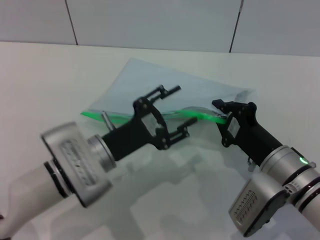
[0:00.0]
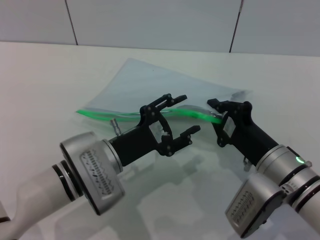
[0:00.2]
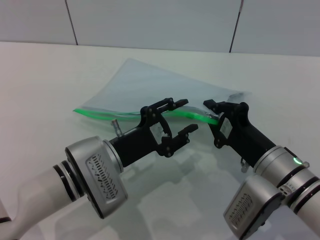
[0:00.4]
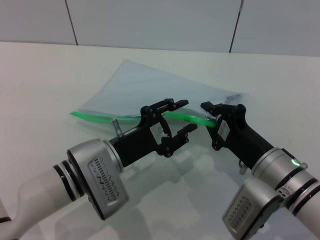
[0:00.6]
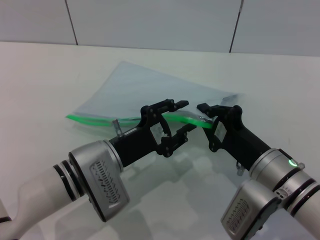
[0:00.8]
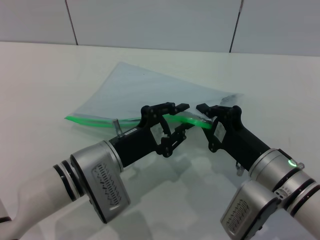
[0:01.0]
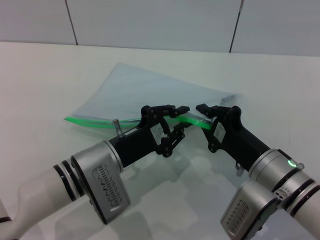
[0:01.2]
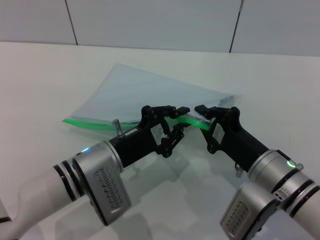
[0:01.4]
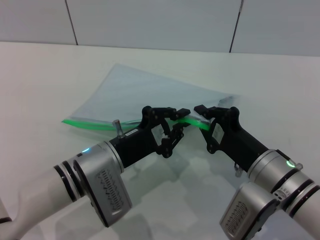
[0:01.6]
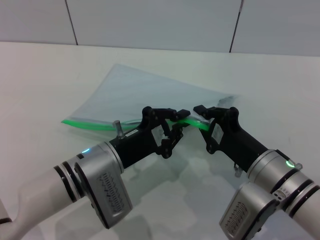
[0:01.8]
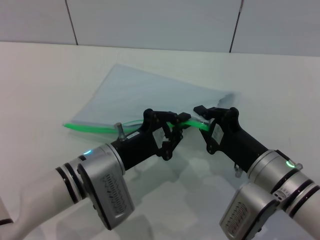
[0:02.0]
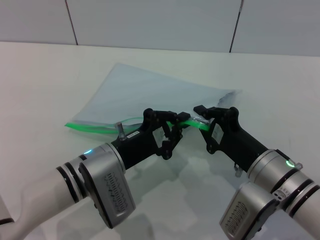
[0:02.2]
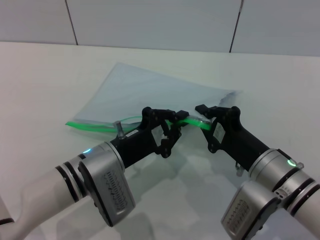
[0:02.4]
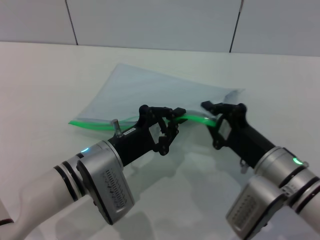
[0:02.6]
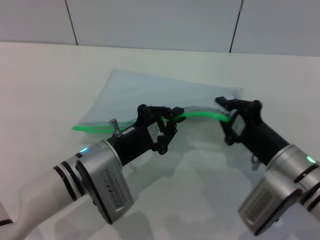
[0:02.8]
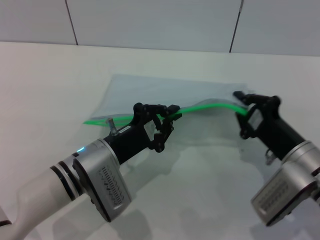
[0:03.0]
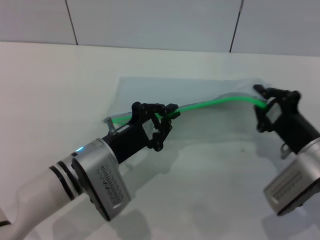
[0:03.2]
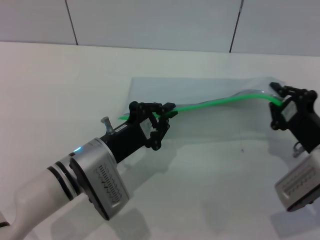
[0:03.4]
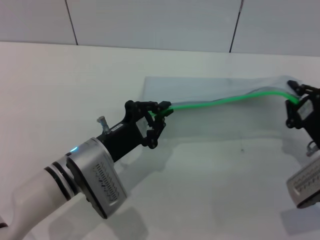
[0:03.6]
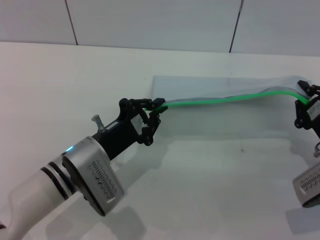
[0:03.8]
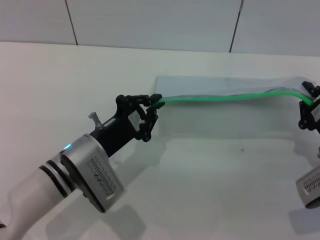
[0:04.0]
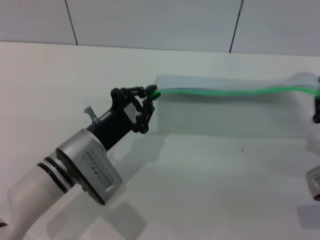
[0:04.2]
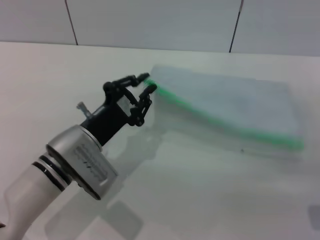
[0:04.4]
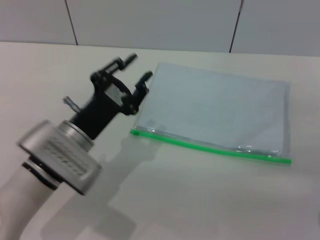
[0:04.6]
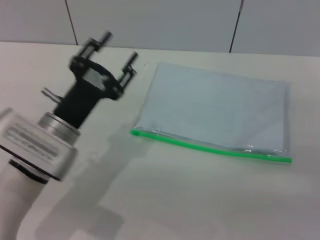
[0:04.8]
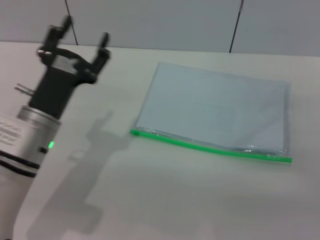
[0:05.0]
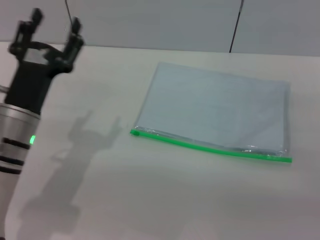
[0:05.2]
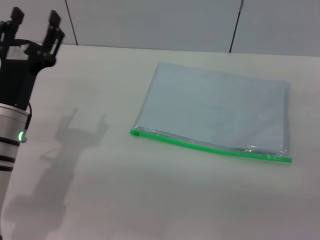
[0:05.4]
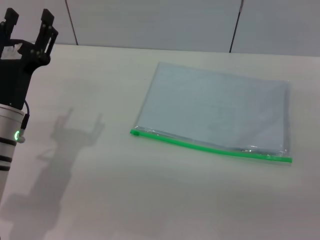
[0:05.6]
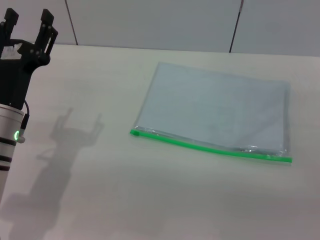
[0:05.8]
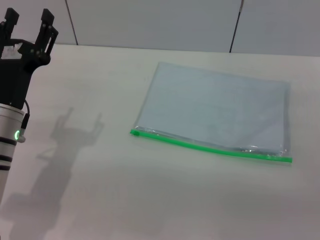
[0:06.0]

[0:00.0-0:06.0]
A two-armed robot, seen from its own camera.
Step, 0:00.0 to 0:04.0: Pulling up the zipper on the transparent plastic bag with the left gripper to close it.
Step, 0:04.2 to 0:05.0: Place the transparent plastic bag.
0:00.0 to 0:01.6: The left gripper closes up.
0:03.0 to 0:04.4: The right gripper is displaced to the right by approximately 10 cm.
0:04.4 to 0:06.0: The right gripper opens; the left gripper is displaced to the left by approximately 10 cm, and opens.
